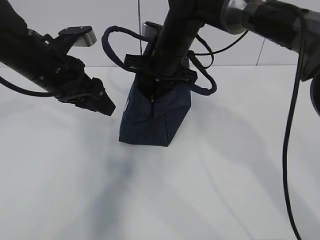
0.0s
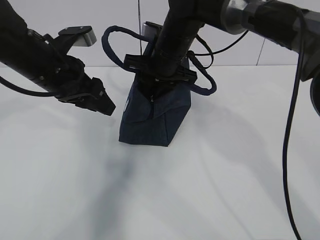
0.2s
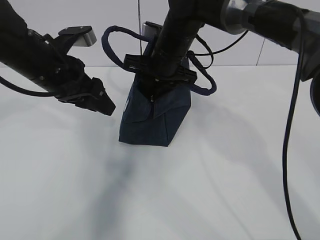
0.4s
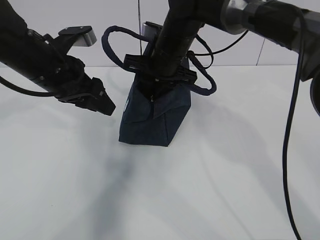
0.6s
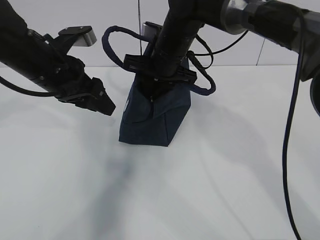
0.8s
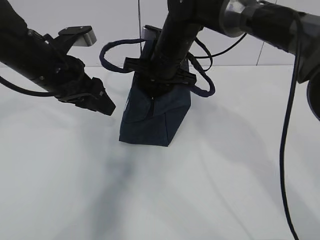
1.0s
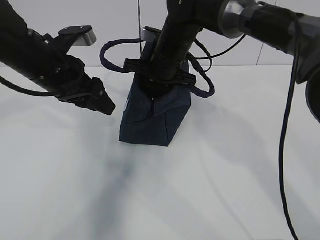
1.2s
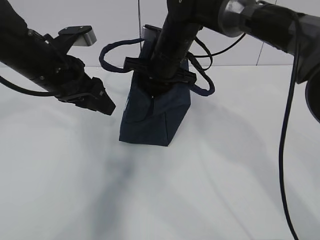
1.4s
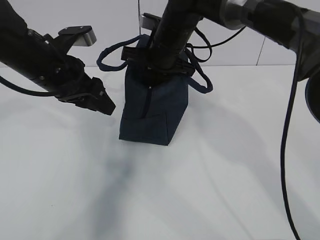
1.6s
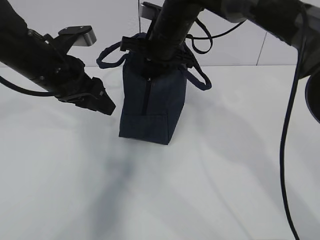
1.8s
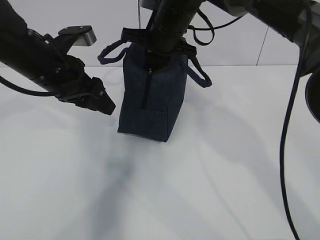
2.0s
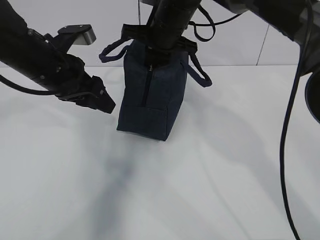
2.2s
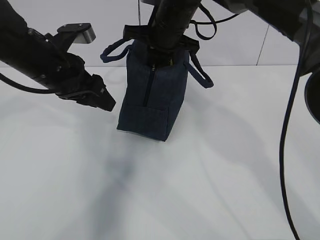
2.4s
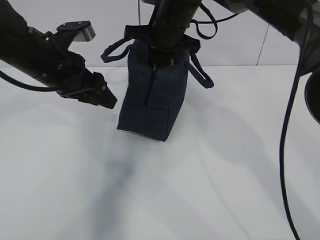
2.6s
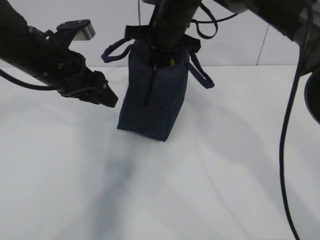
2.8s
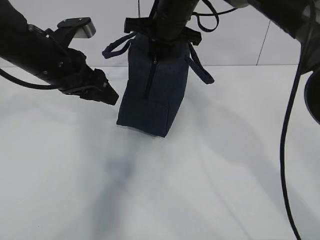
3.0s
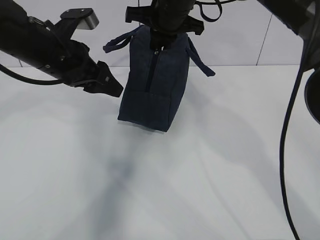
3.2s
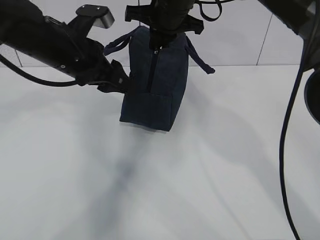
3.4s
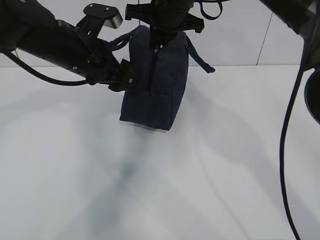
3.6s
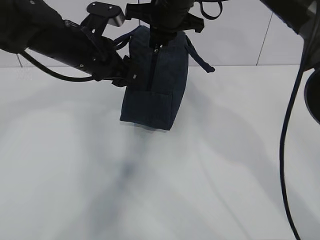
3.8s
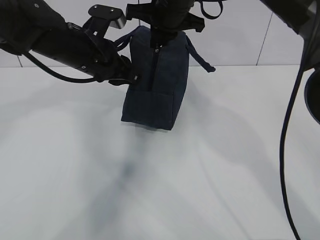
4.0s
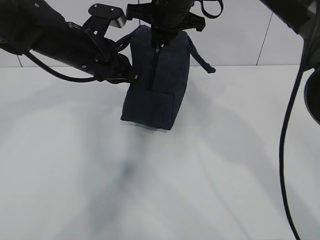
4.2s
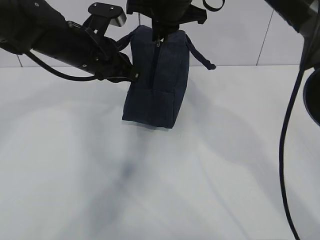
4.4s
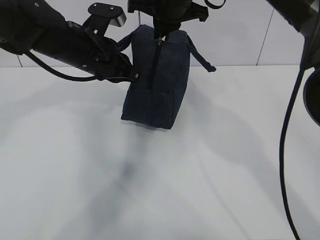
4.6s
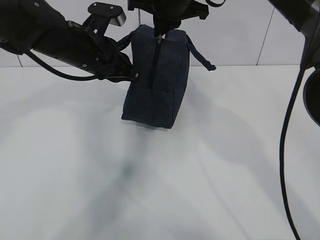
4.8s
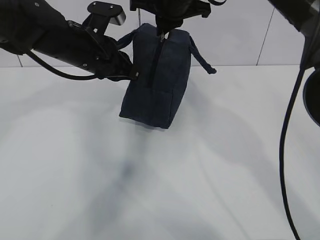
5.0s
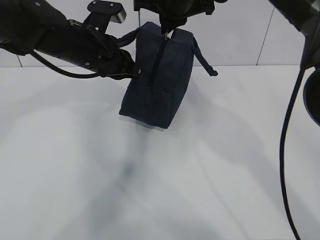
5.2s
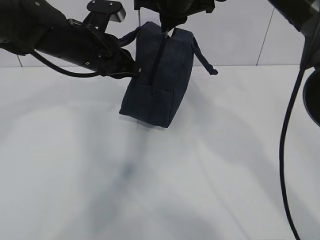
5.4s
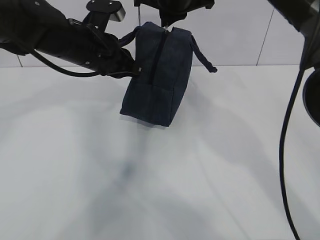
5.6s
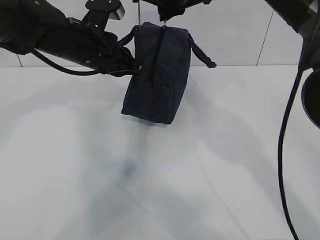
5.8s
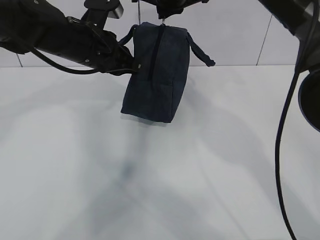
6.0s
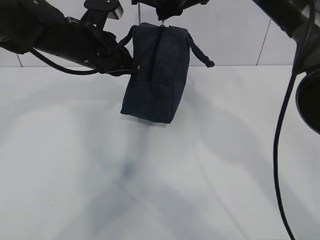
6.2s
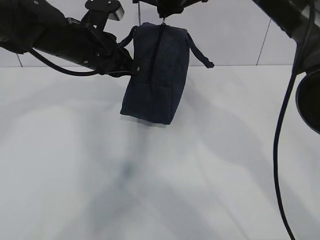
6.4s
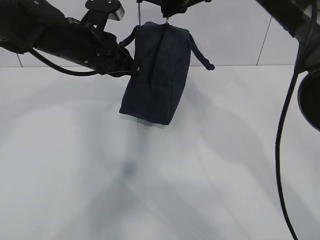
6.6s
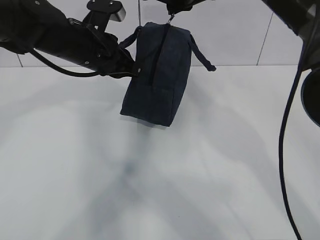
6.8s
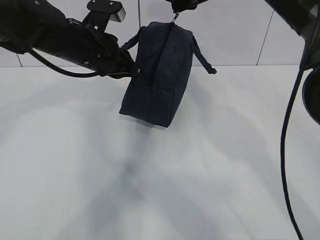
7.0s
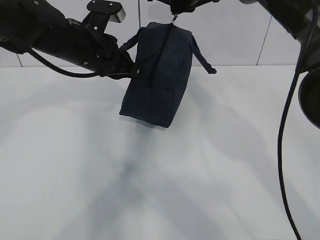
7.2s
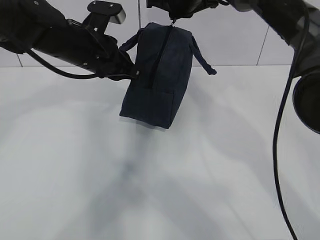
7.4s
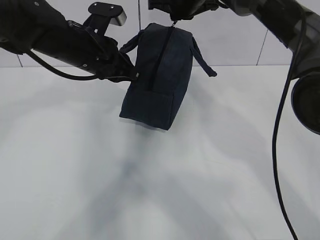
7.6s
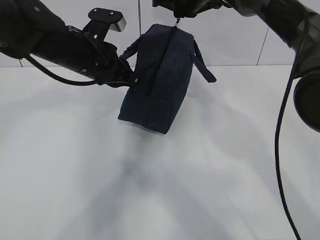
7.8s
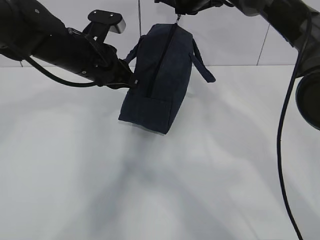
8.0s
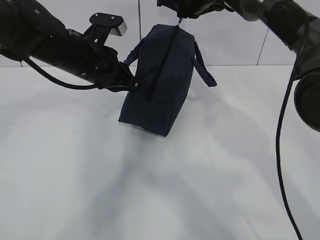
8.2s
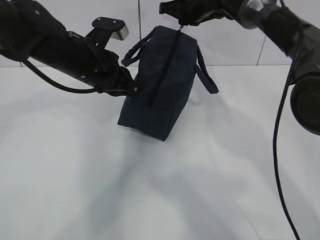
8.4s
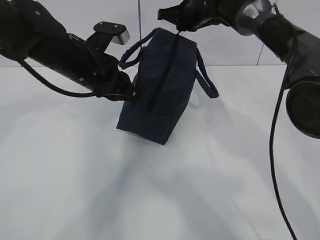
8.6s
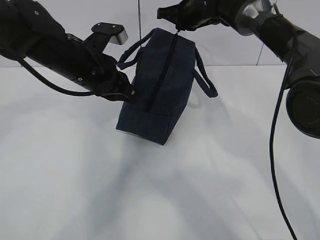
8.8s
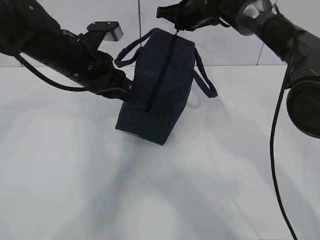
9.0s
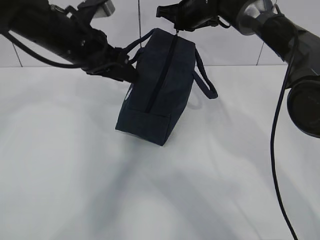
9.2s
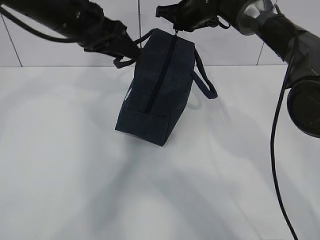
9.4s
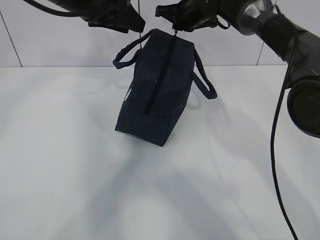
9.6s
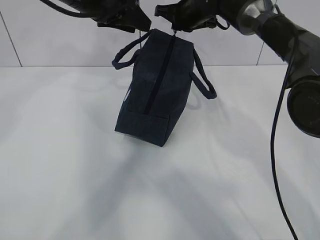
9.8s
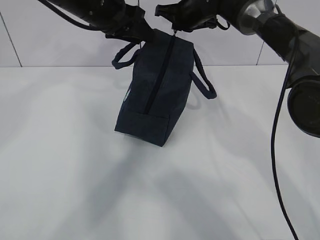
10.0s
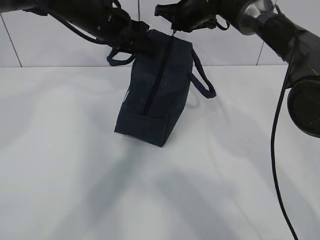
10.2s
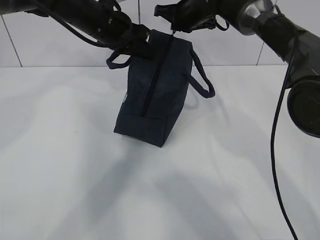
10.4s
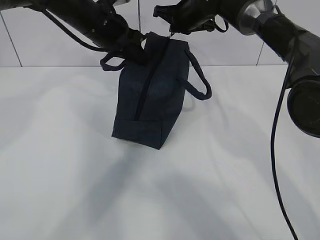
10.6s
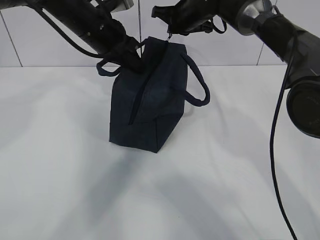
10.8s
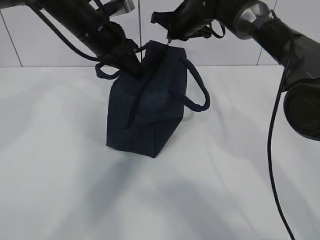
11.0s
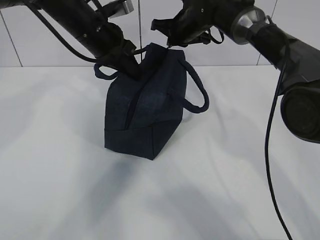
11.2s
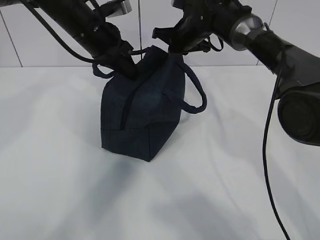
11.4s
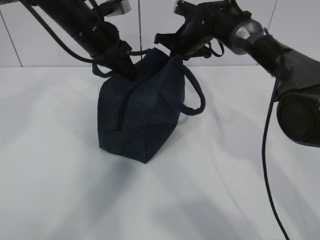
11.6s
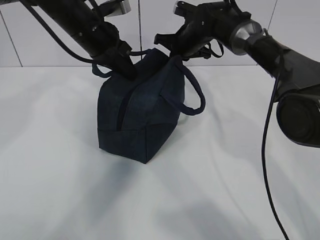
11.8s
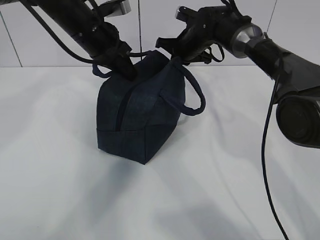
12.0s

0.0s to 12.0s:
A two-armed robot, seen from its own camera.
0.0s to 1.6s: The right gripper closes its fingers.
1.6s to 3.0s: The grippers stay close to where they were, moving slightly.
3.0s to 4.4s: The left gripper shifts by roughly 5 cm, and closes.
4.4s to 6.0s: There are only small adjustments of the grippers.
6.0s to 7.6s: The right gripper shifts by about 5 cm.
7.6s to 9.0s: The right gripper shifts by about 5 cm.
9.0s to 10.4s: The left gripper goes approximately 10 cm forward, reaches approximately 10 cm upward, then returns, and opens, then closes again.
10.4s to 12.0s: The right gripper is displaced downward by approximately 5 cm.

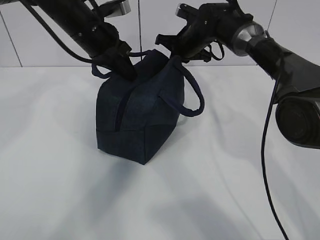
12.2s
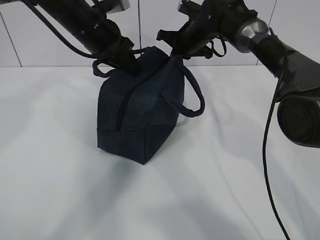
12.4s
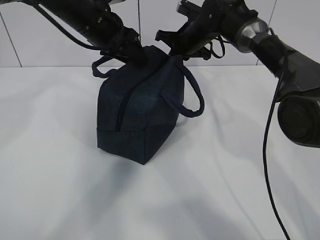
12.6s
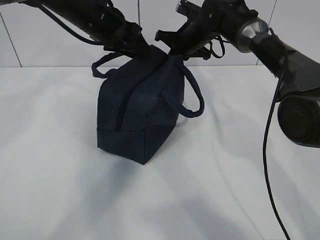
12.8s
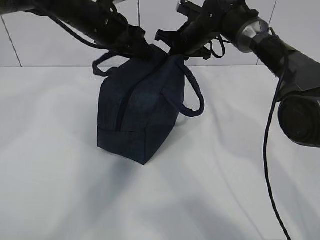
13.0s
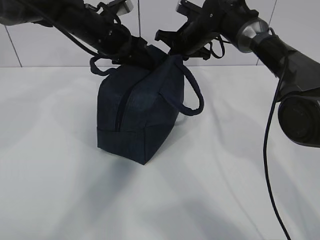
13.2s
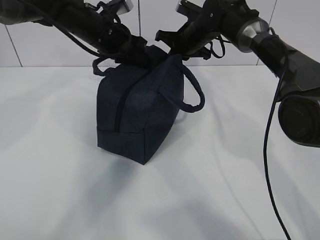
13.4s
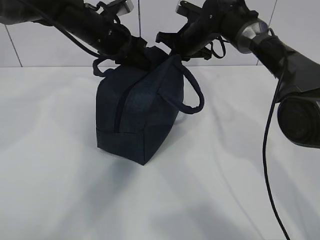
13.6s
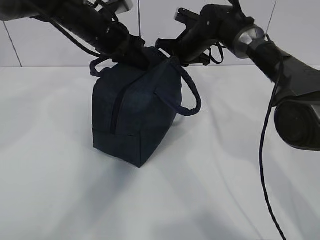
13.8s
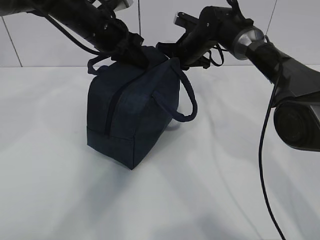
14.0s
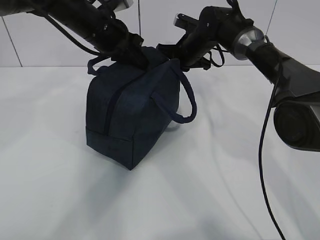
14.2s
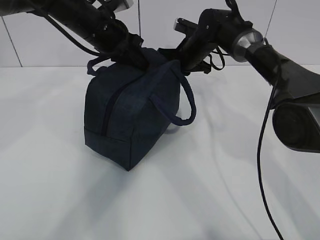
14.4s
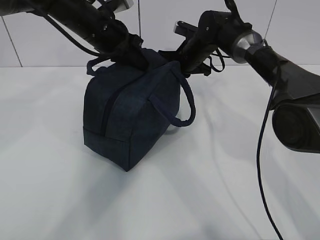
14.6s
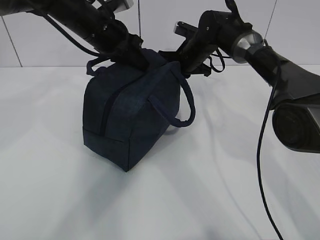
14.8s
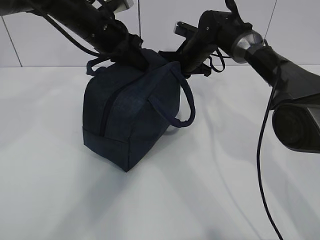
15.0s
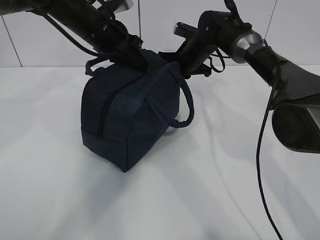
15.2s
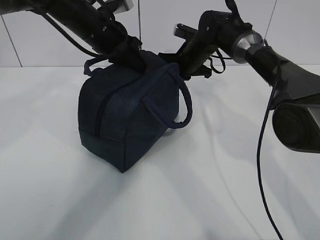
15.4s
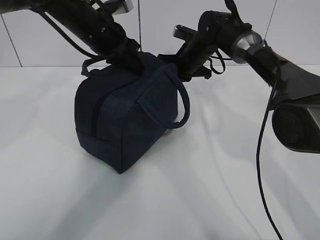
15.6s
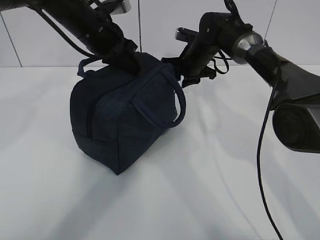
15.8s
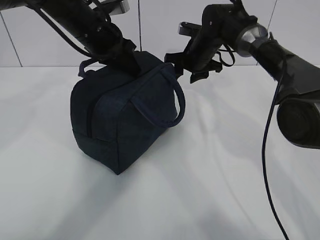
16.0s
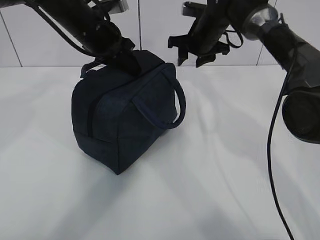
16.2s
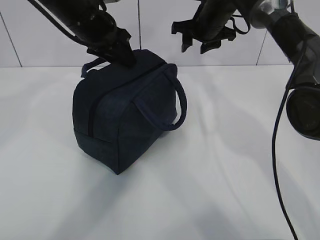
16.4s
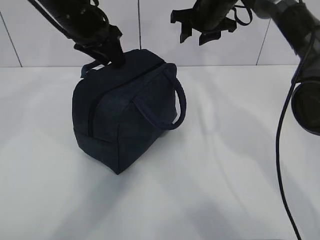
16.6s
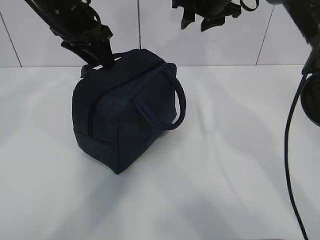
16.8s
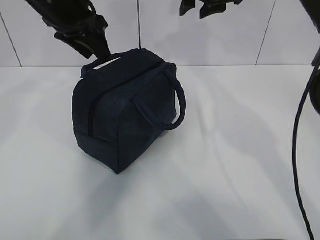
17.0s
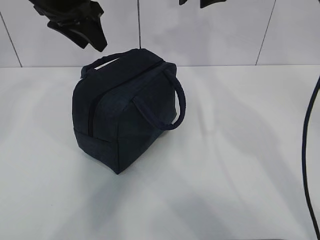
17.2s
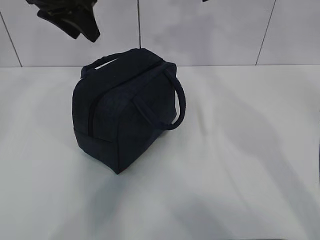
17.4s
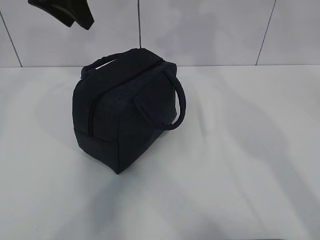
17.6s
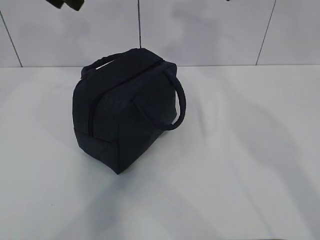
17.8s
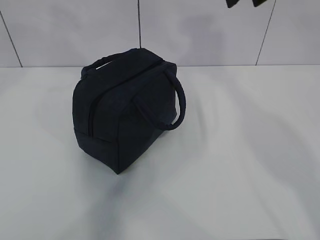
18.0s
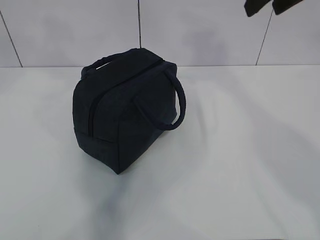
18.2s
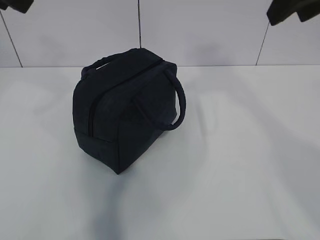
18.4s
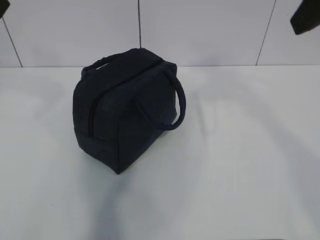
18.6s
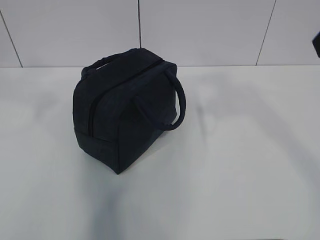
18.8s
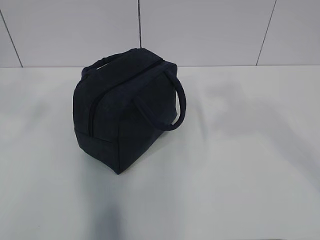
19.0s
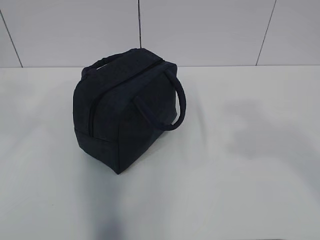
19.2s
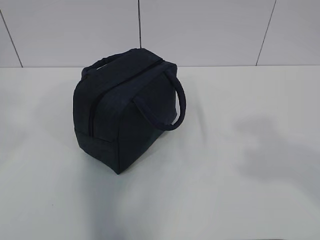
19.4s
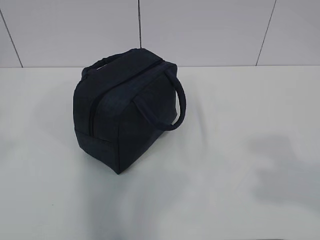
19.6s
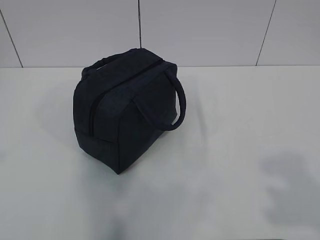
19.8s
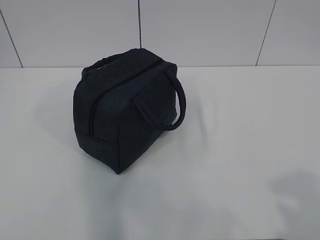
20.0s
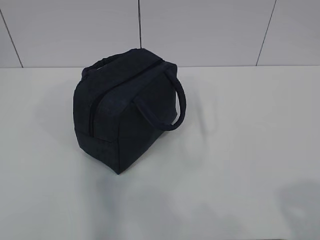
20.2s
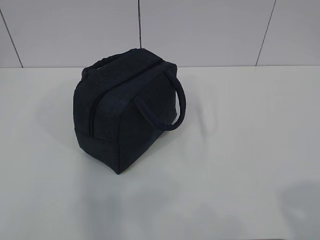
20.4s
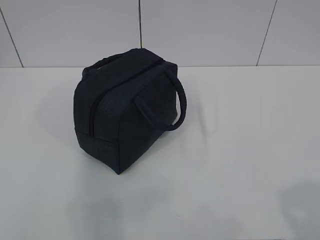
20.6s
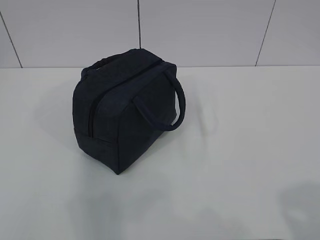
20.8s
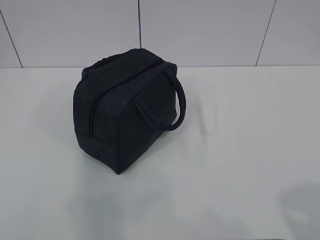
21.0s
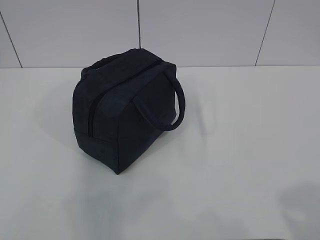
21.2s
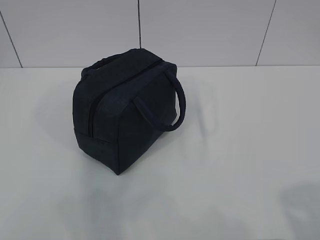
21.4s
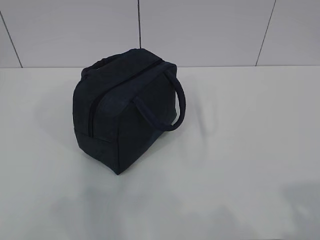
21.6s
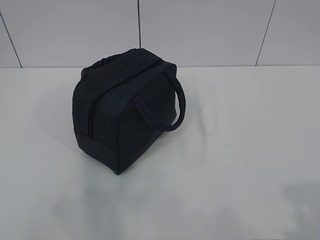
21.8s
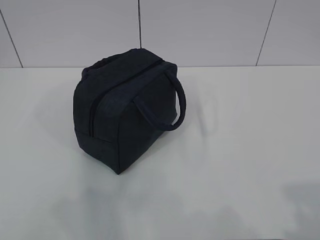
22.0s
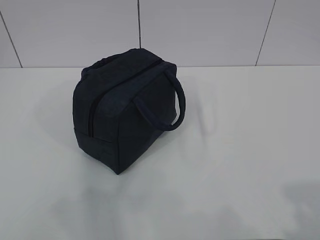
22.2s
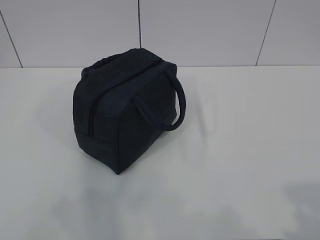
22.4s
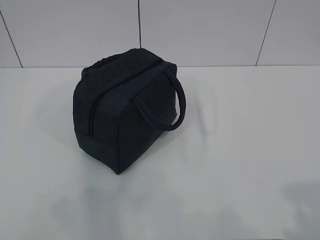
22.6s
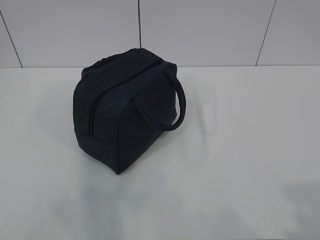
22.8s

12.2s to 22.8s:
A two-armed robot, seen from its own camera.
12.2s to 13.8s: The left gripper opens and closes again.
13.8s to 15.2s: The grippers move only a little.
15.2s to 16.8s: The left gripper moves about 5 cm, and opens its fingers, while the right gripper heads upward, covering some 15 cm, and opens.
16.8s to 18.2s: The left gripper shifts about 20 cm upward and backward. Meanwhile the right gripper travels backward and upward by approximately 20 cm.
18.2s to 19.8s: The right gripper goes roughly 30 cm backward.
19.8s to 21.2s: The right gripper moves downward, roughly 5 cm, while the left gripper goes about 10 cm downward.
